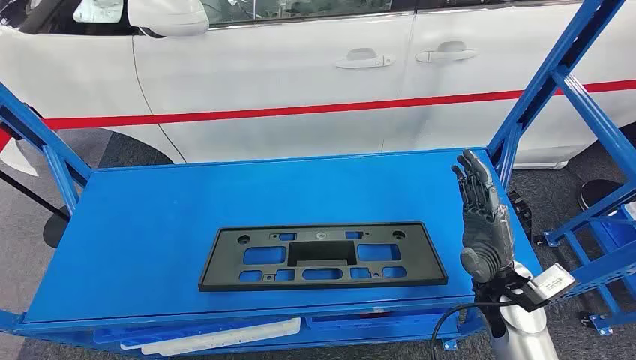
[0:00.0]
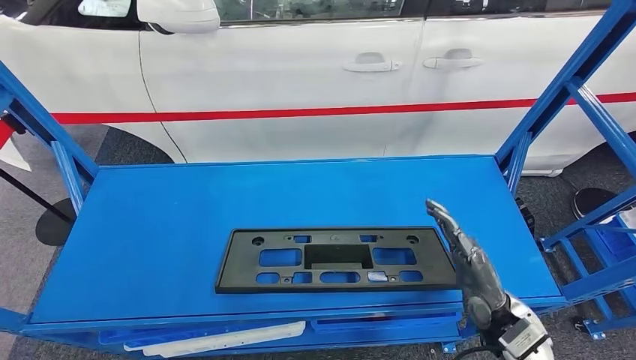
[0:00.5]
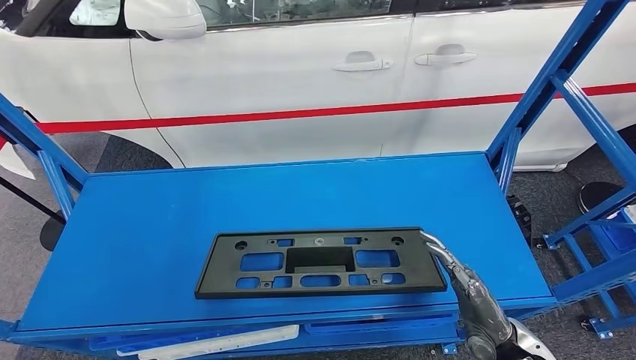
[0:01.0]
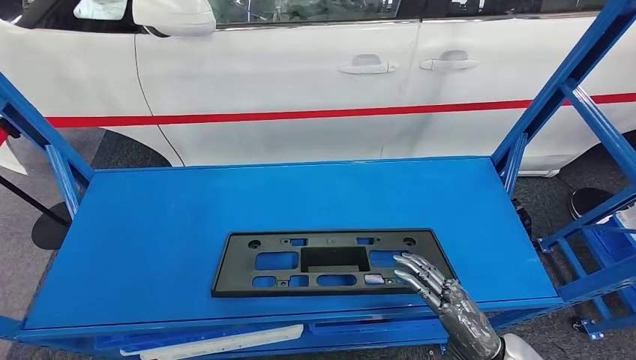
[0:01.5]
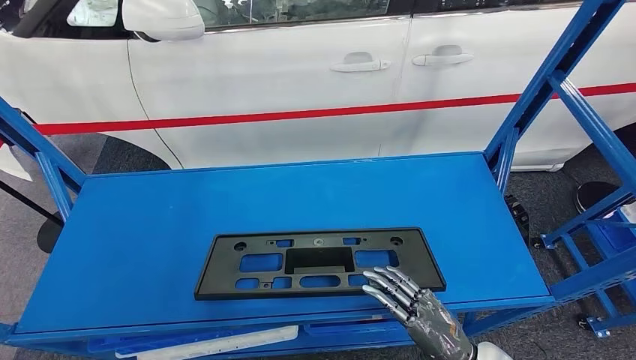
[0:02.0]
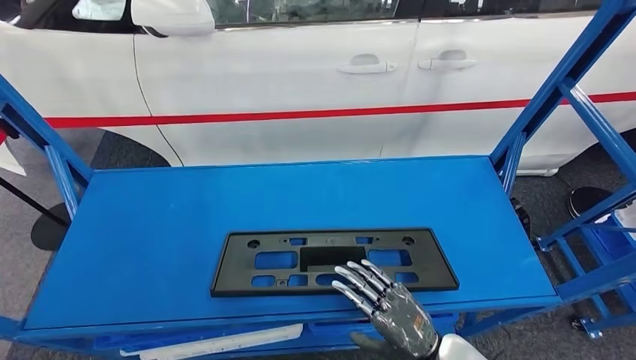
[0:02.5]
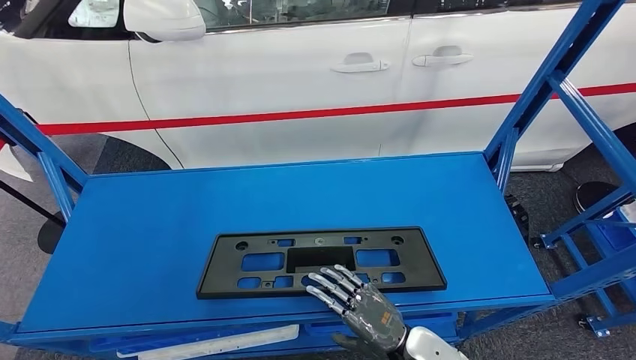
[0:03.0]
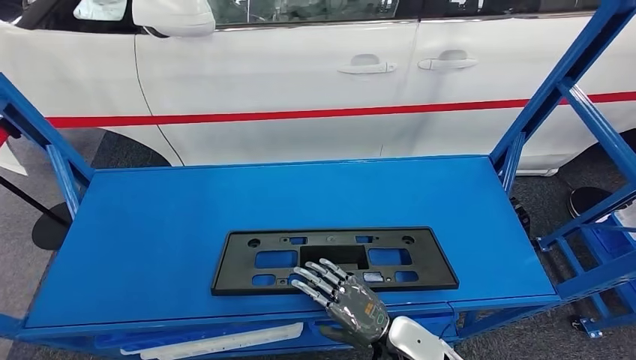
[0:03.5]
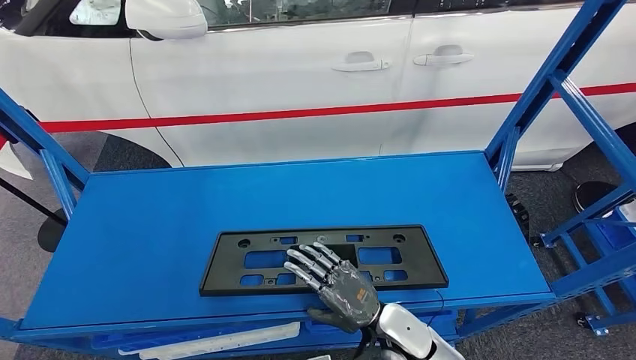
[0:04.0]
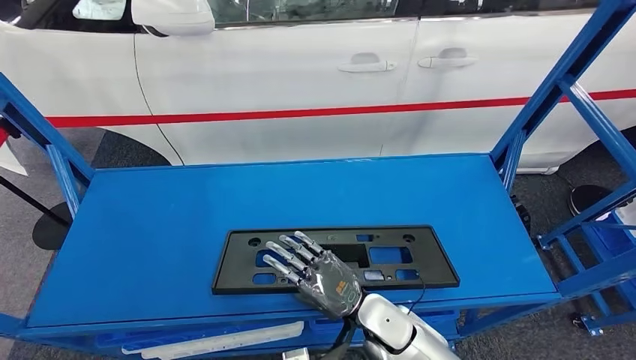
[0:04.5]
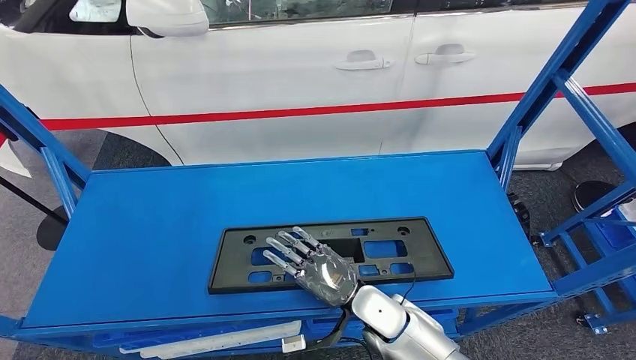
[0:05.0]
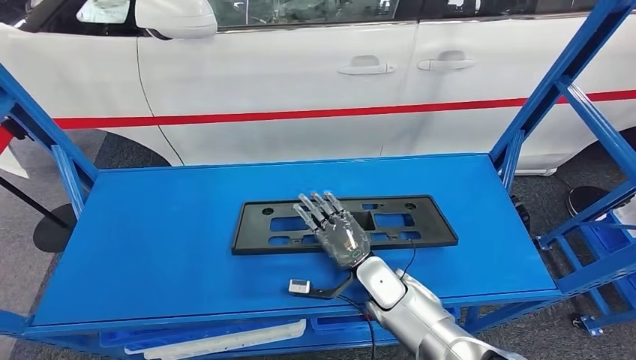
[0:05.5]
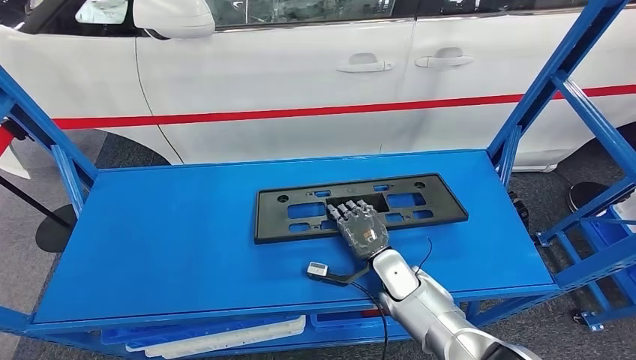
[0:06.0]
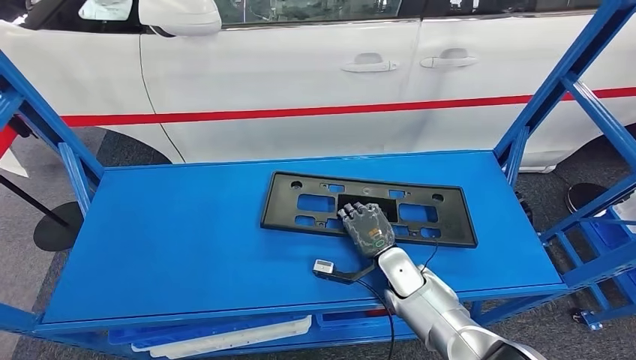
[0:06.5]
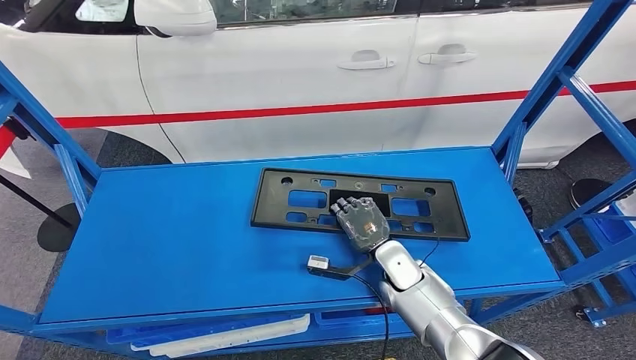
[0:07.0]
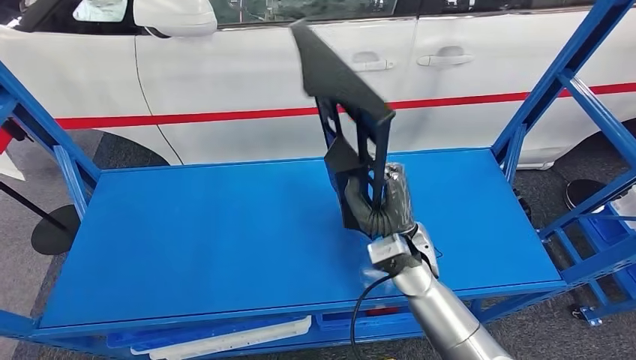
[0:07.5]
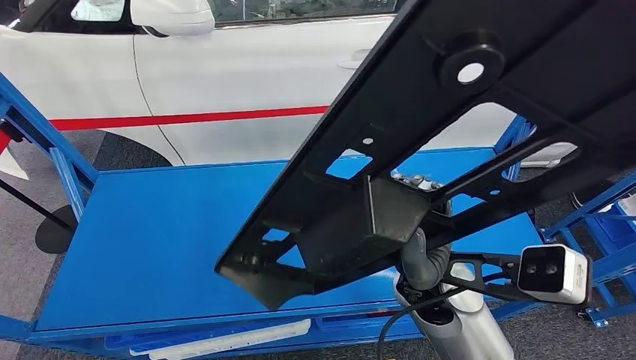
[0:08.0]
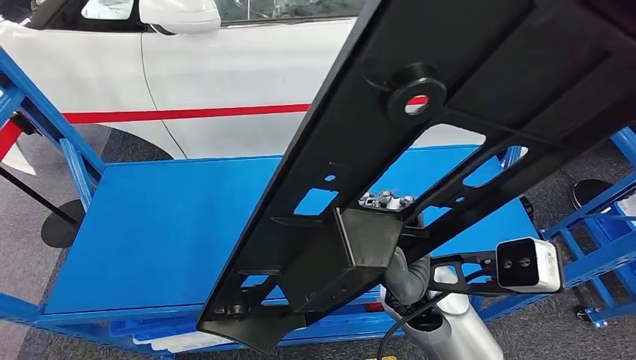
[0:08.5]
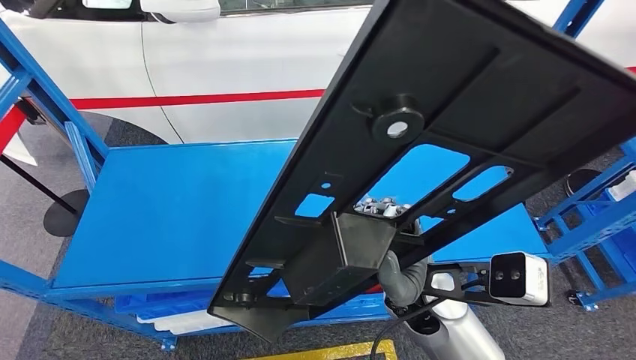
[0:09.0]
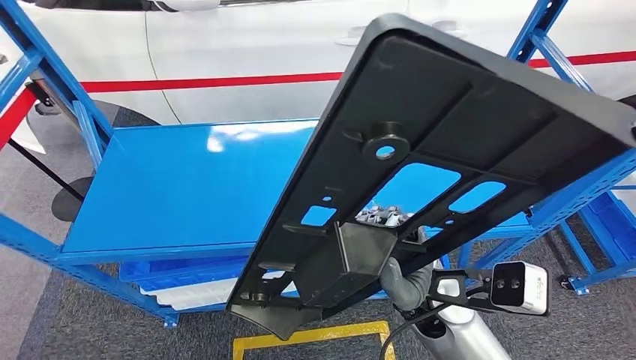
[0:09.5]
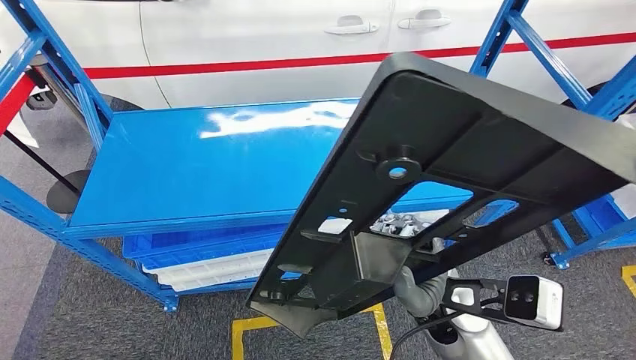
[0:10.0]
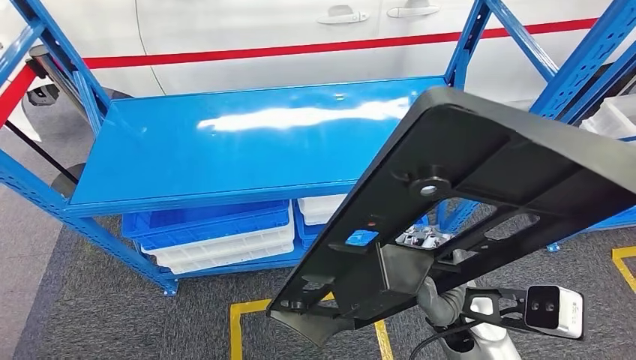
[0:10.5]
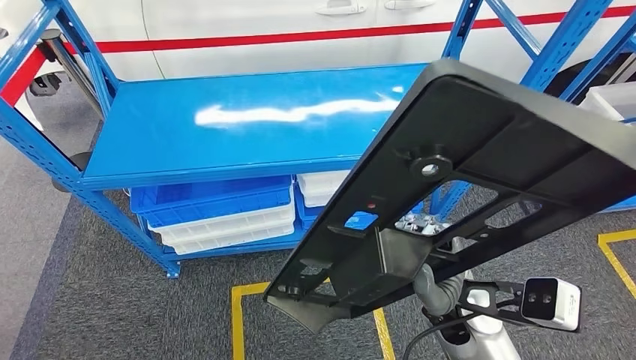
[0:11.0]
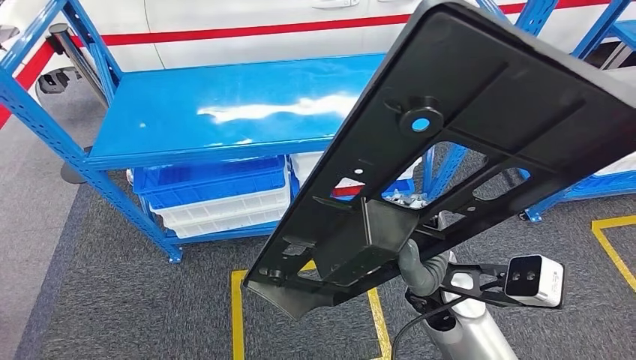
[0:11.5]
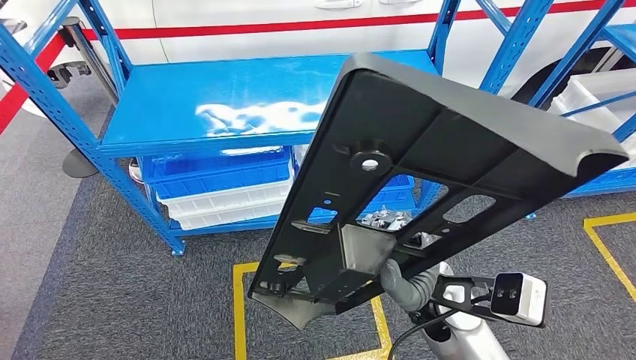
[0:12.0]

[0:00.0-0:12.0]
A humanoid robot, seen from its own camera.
Step, 0:00.0 to 0:08.5: Pick up the large material from the shelf.
0:02.0 to 0:04.0: The right hand shifts about 15 cm to the left and forward.

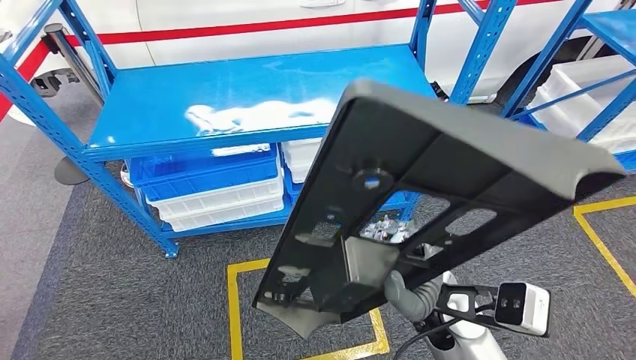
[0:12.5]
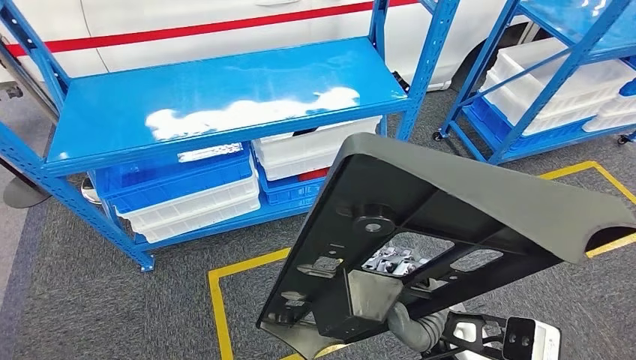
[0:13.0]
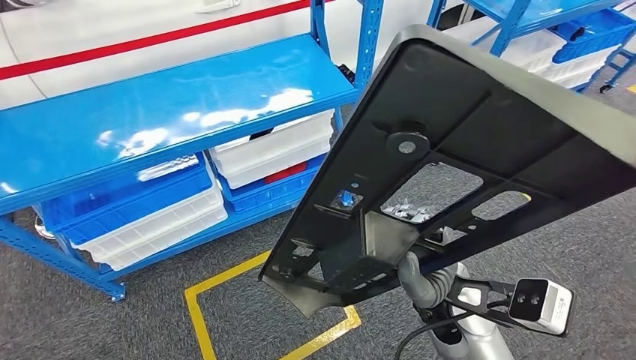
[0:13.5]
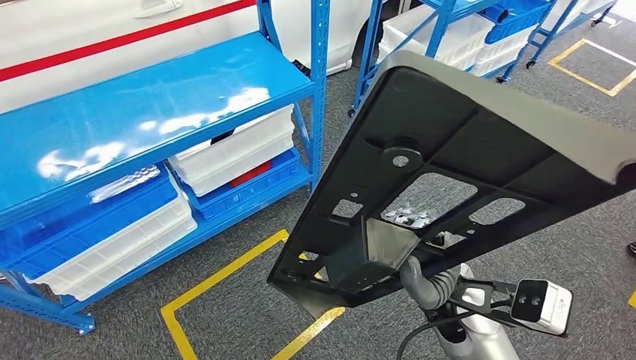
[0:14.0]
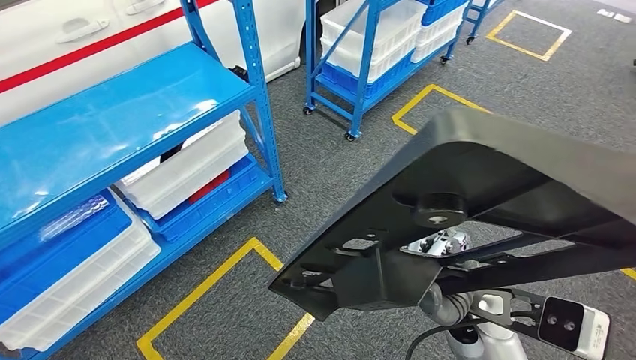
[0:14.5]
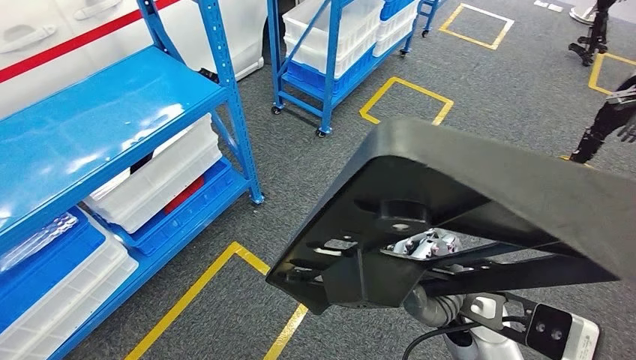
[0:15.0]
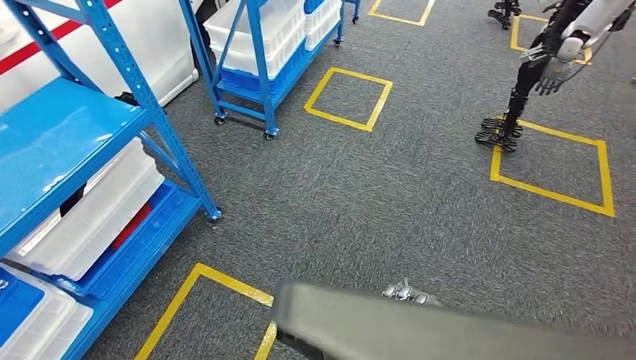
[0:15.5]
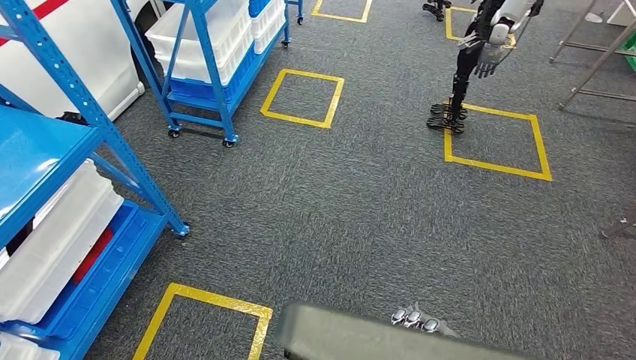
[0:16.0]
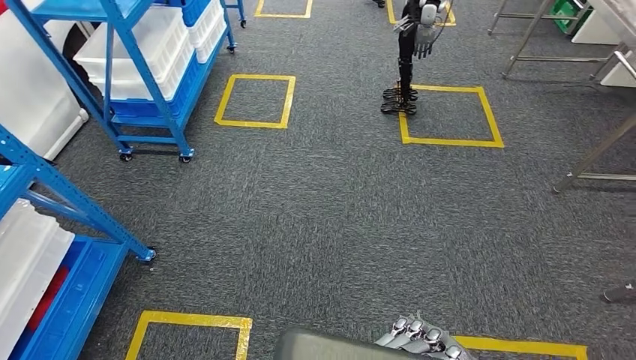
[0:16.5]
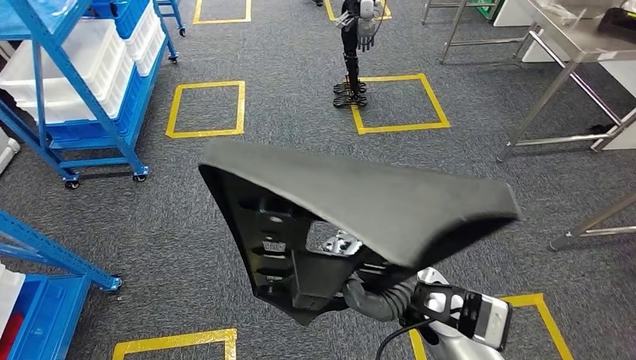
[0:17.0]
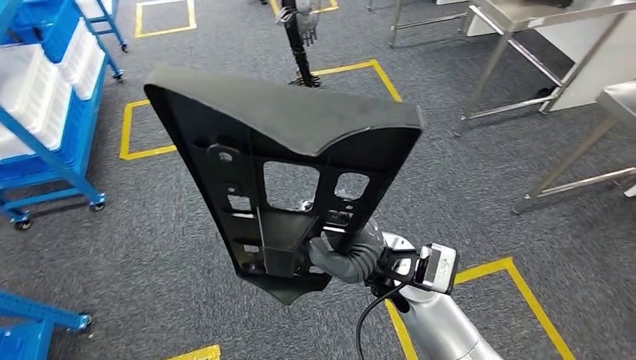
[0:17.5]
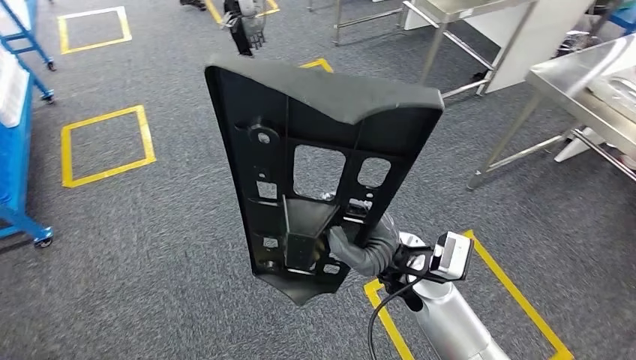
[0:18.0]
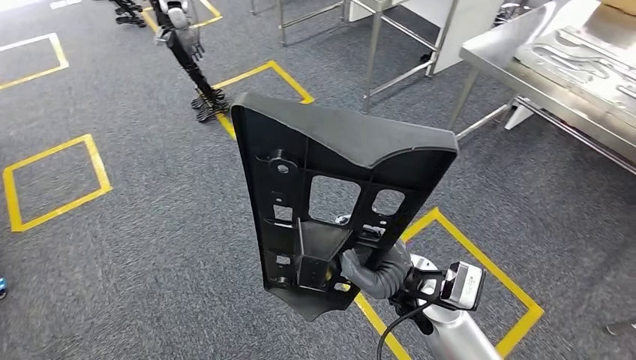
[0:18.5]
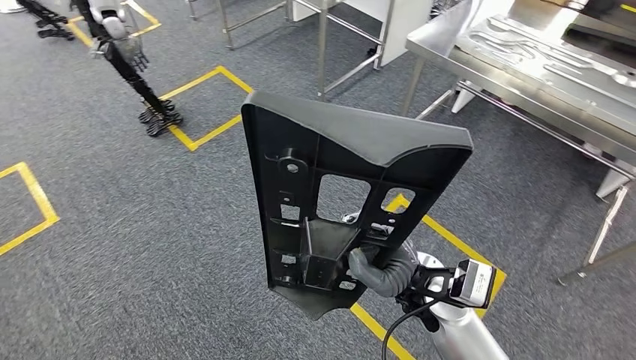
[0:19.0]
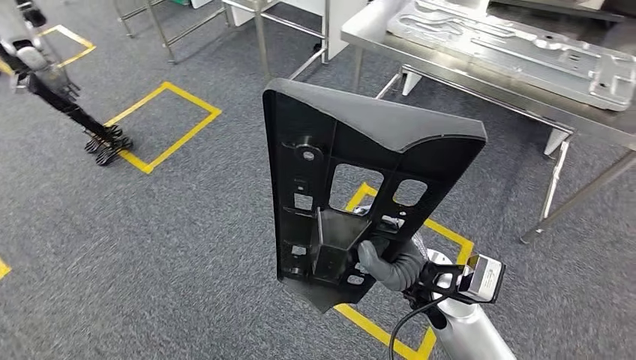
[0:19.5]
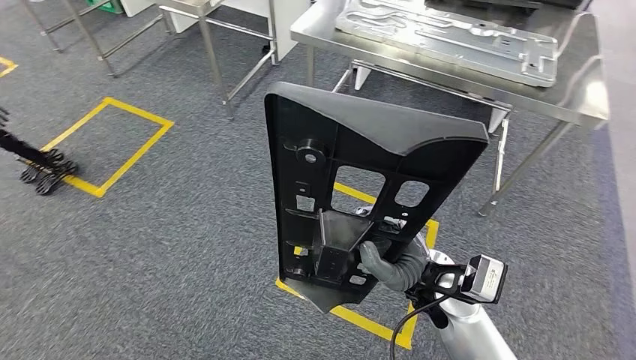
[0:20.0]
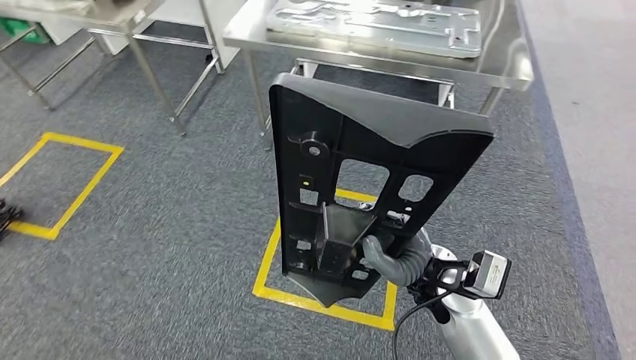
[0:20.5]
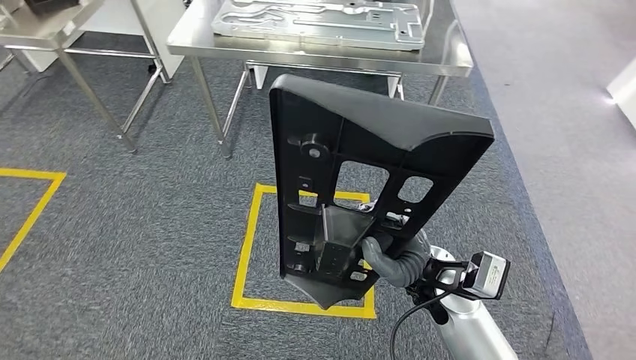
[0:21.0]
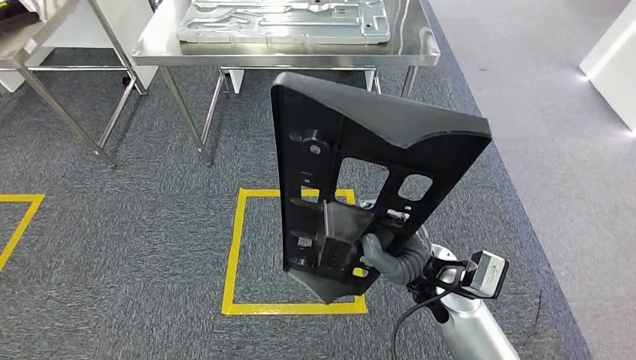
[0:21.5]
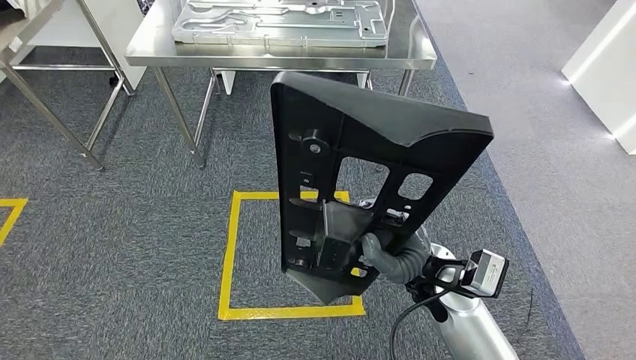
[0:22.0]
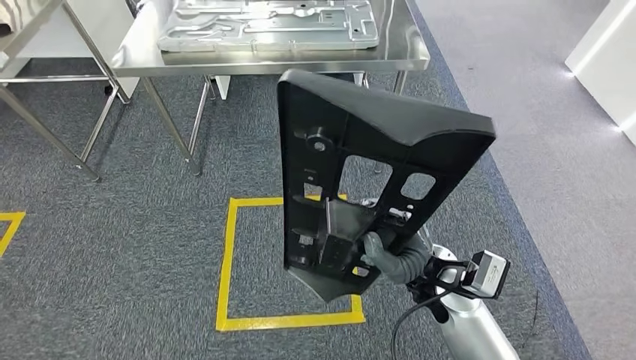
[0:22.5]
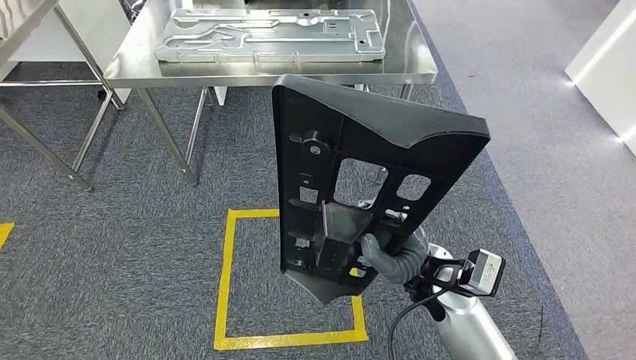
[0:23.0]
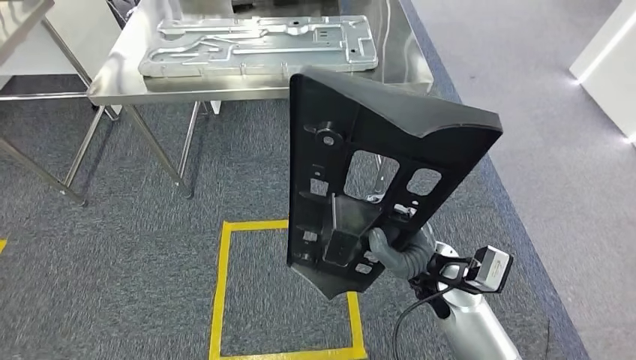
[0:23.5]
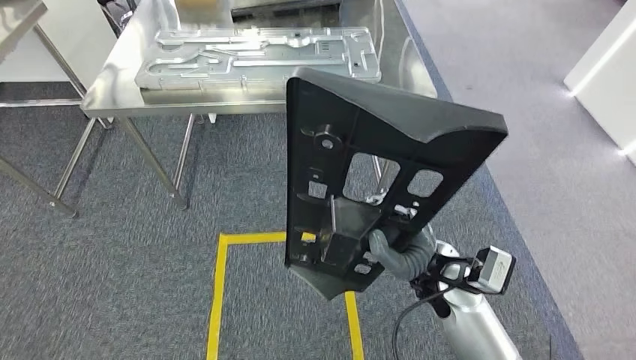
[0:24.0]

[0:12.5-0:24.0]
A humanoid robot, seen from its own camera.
Step, 0:12.5 to 0:23.0: Move the large material to the workbench.
